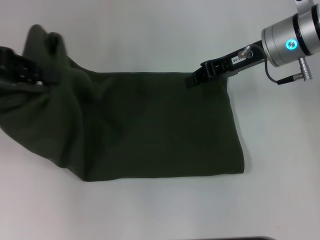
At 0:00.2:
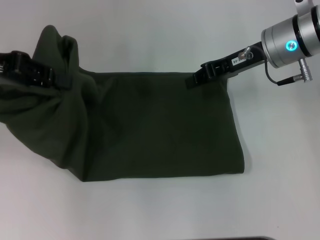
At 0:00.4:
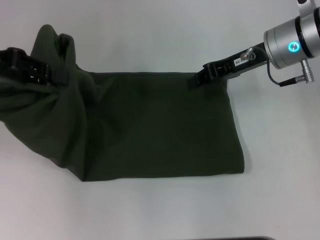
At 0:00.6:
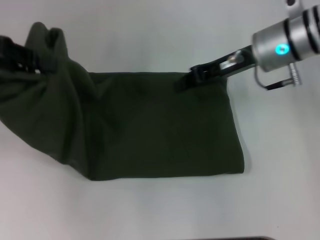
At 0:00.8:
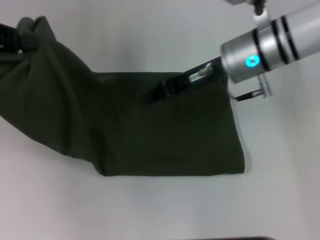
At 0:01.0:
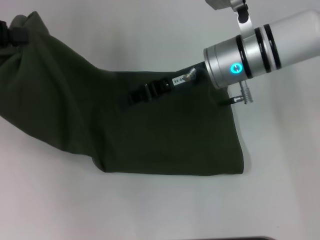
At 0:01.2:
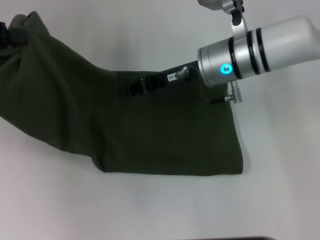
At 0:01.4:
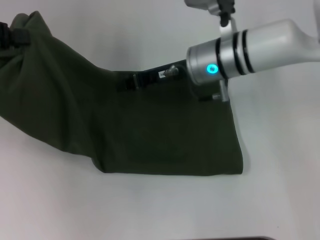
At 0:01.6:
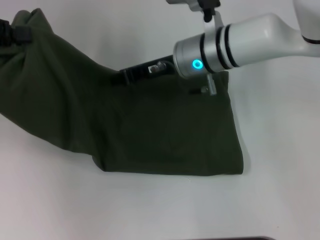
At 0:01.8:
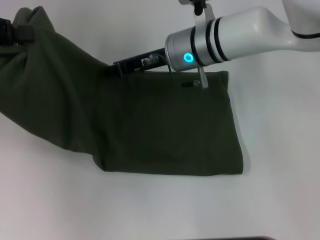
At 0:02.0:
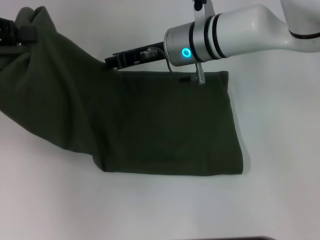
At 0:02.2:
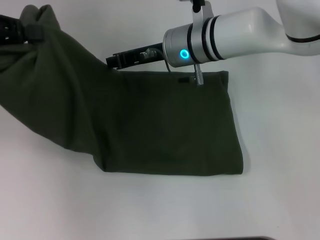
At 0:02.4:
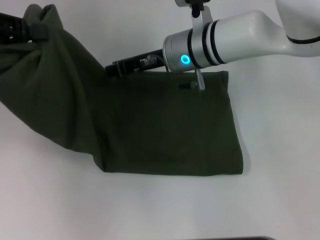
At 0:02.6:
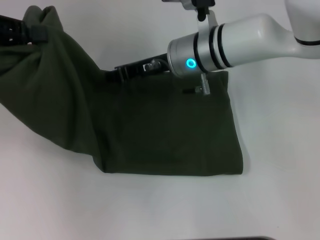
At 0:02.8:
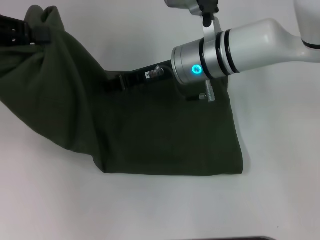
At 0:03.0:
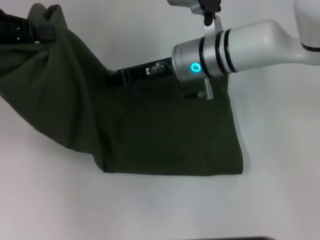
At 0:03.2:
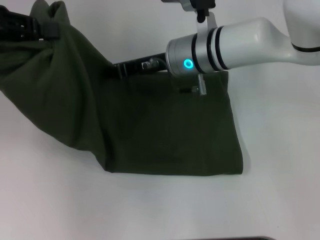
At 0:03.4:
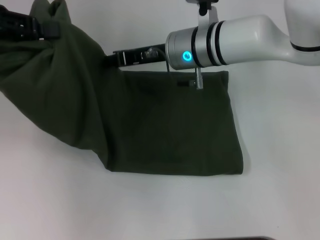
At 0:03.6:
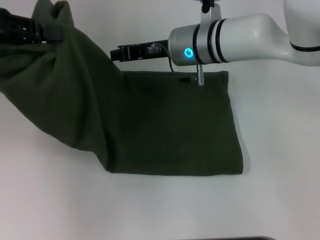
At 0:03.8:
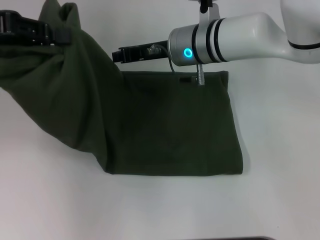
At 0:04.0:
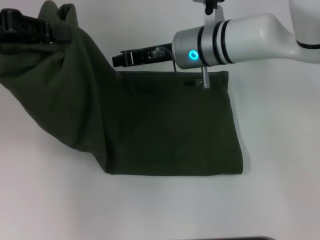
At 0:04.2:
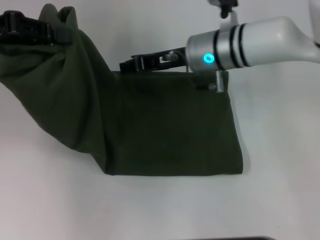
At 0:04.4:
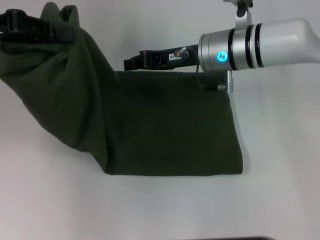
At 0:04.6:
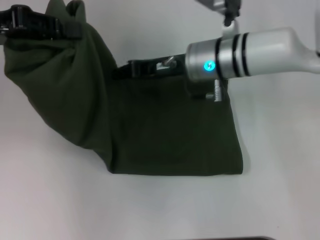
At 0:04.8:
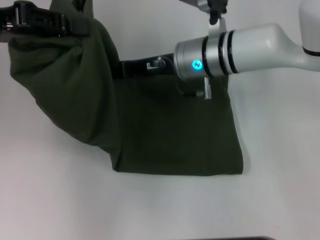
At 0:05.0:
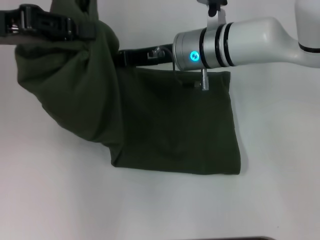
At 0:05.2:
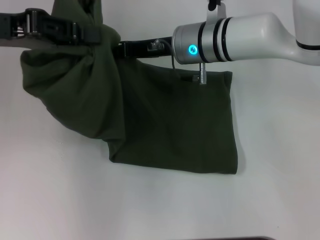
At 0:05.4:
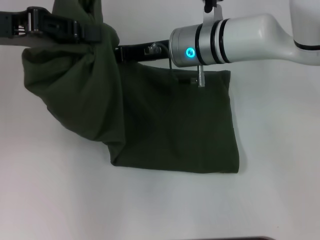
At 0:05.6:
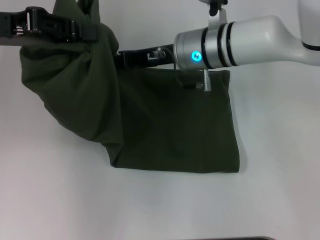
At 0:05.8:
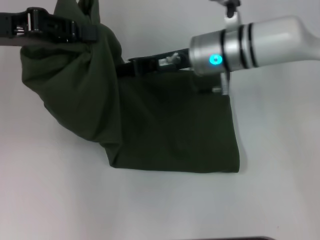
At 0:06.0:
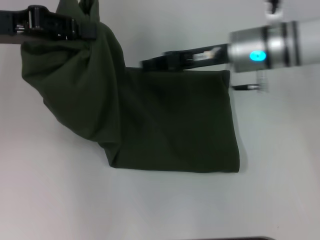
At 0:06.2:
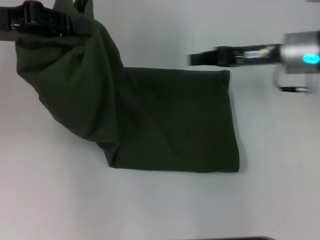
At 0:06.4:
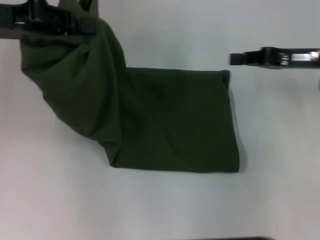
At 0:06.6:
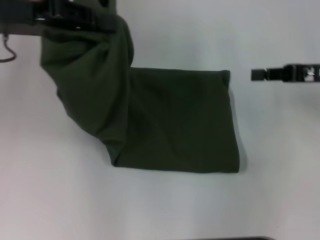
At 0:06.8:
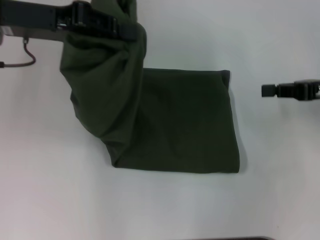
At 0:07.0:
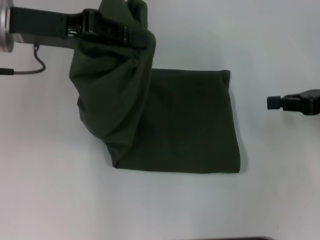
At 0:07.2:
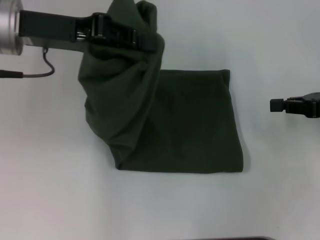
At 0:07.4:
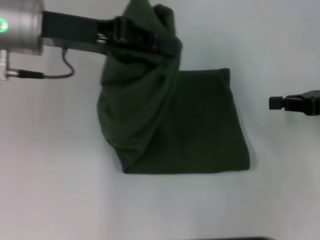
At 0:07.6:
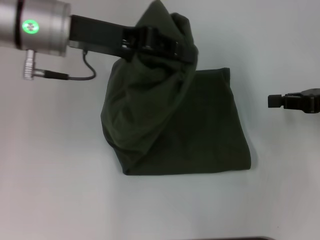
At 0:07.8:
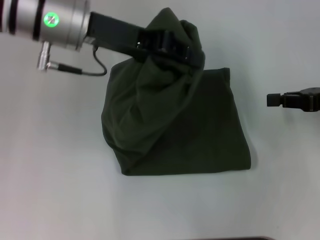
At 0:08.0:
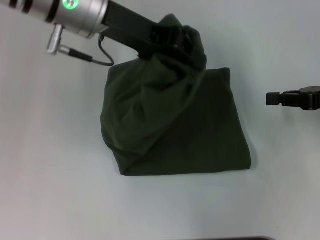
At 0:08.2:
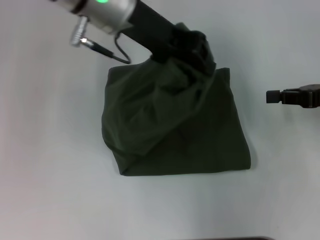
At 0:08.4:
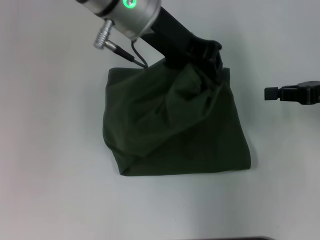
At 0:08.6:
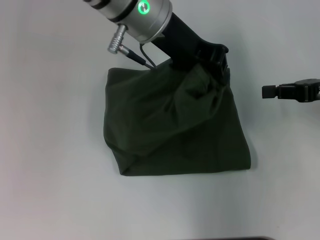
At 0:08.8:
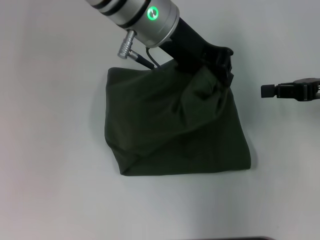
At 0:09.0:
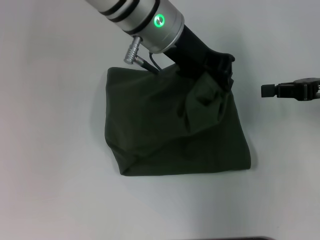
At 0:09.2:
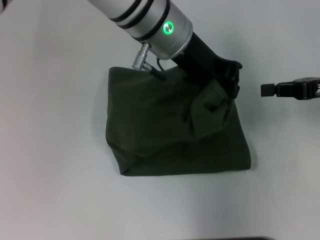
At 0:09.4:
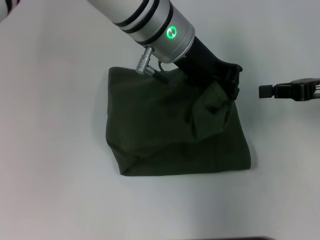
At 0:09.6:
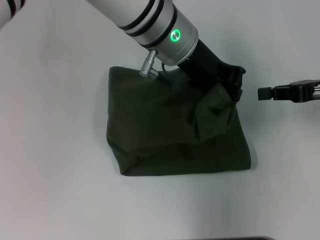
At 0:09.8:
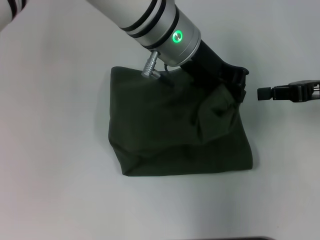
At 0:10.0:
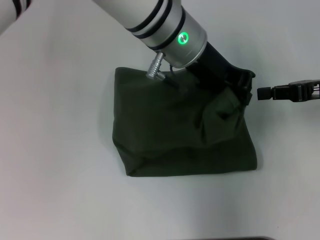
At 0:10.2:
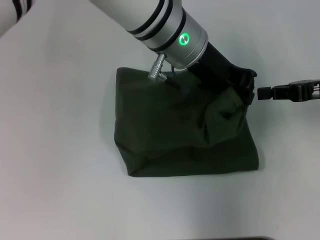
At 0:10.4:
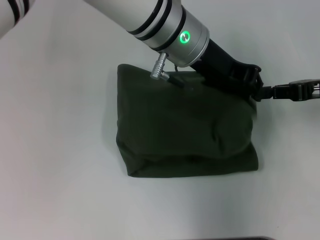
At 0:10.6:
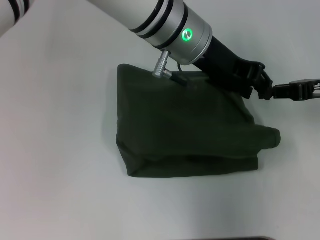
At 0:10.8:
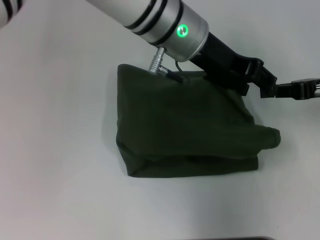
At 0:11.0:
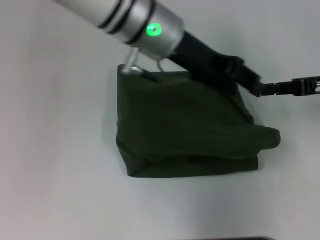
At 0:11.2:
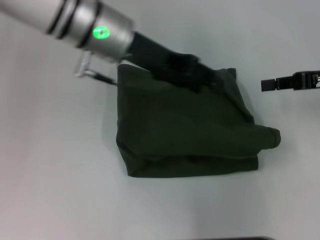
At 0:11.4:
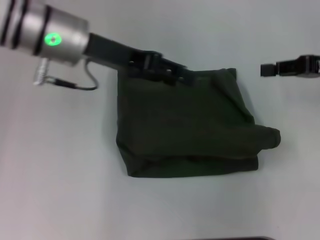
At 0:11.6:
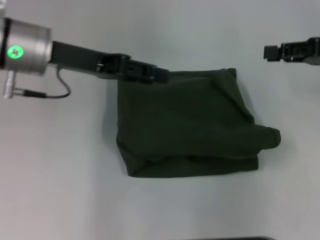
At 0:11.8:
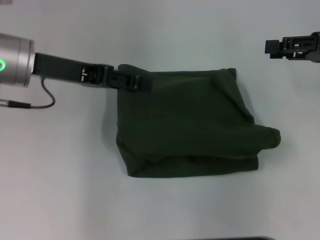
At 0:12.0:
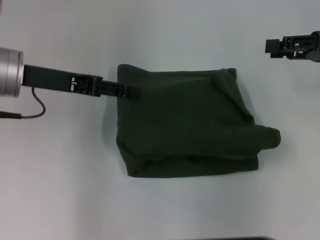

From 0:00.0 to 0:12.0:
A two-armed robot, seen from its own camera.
Step, from 0:00.0 to 0:11.2: Fold the clothes with your left hand.
From 0:00.0 to 0:01.6: The right gripper travels to the left by roughly 10 cm.
From 0:01.6 to 0:04.4: The grippers move only a little.
From 0:04.4 to 0:06.0: The grippers make only small movements.
From 0:06.0 to 0:07.6: The right gripper goes about 20 cm to the right and backward. The left gripper travels to the right by about 10 cm.
From 0:07.6 to 0:09.0: The left gripper goes approximately 15 cm to the right.
From 0:09.0 to 0:10.4: The grippers make only small movements.
From 0:10.4 to 0:12.0: The right gripper opens its fingers; the left gripper goes roughly 20 cm to the left, and opens its fingers.

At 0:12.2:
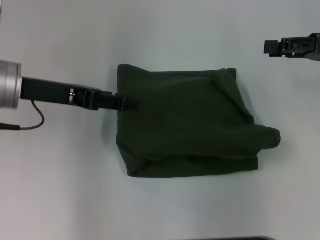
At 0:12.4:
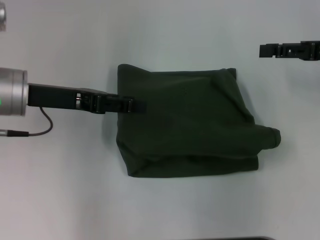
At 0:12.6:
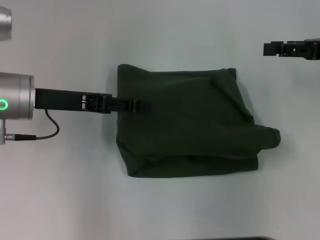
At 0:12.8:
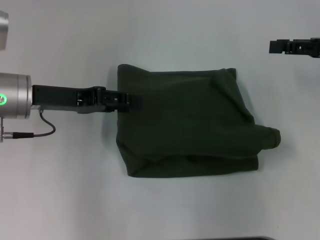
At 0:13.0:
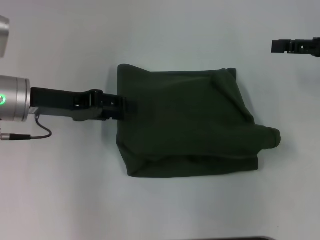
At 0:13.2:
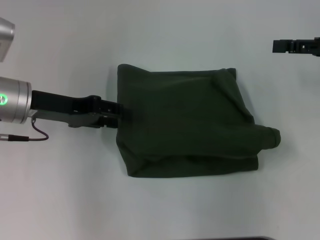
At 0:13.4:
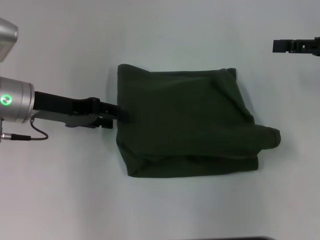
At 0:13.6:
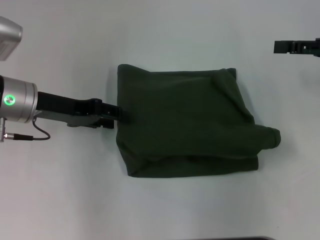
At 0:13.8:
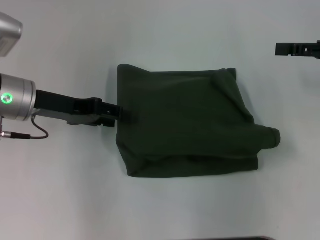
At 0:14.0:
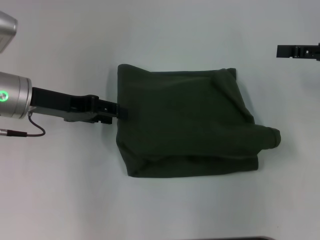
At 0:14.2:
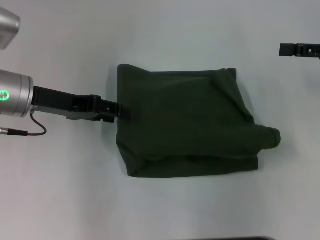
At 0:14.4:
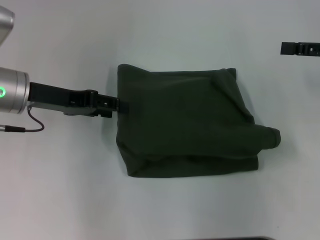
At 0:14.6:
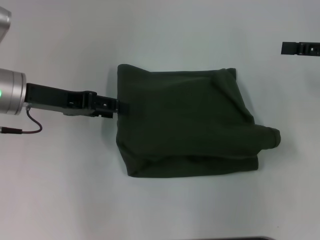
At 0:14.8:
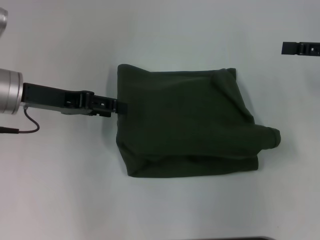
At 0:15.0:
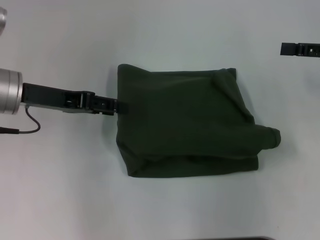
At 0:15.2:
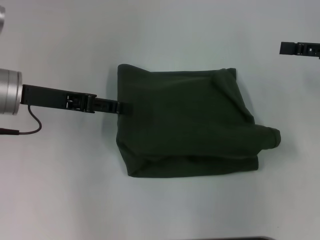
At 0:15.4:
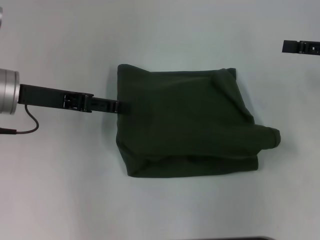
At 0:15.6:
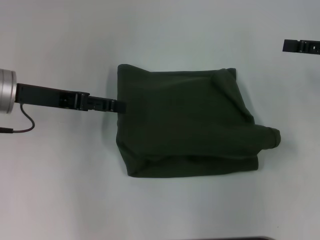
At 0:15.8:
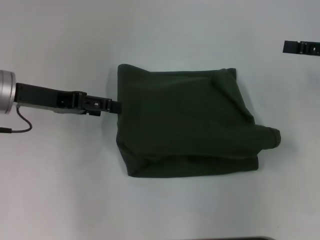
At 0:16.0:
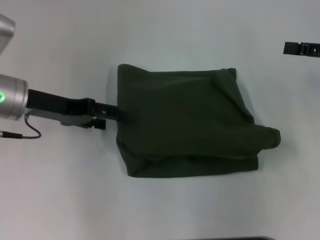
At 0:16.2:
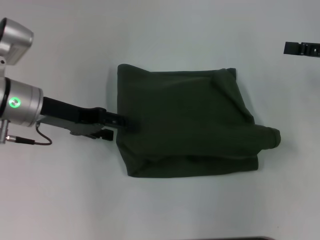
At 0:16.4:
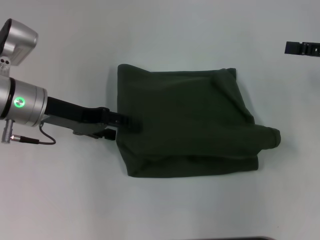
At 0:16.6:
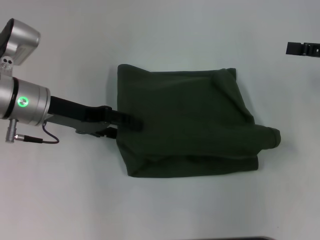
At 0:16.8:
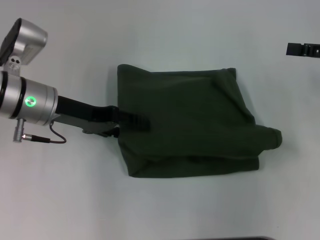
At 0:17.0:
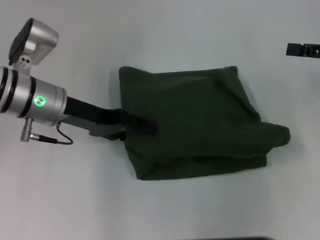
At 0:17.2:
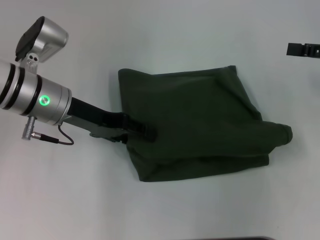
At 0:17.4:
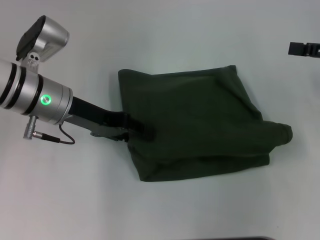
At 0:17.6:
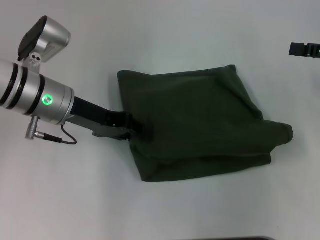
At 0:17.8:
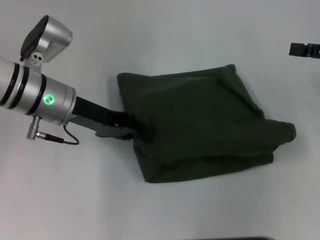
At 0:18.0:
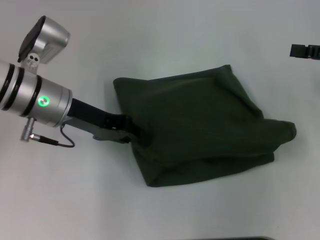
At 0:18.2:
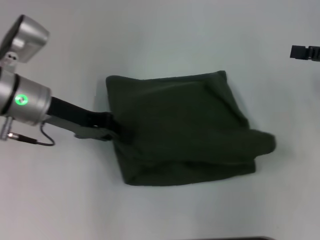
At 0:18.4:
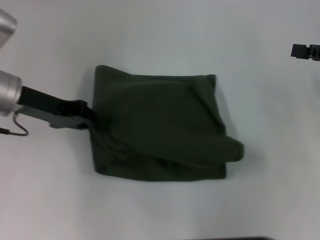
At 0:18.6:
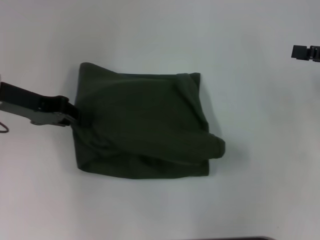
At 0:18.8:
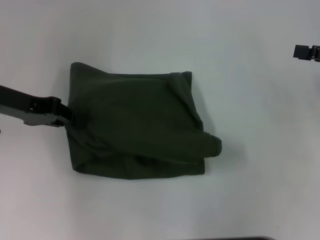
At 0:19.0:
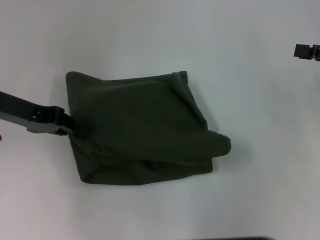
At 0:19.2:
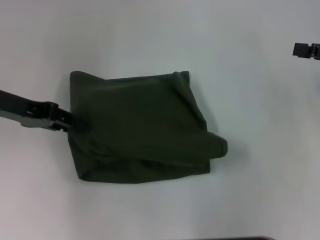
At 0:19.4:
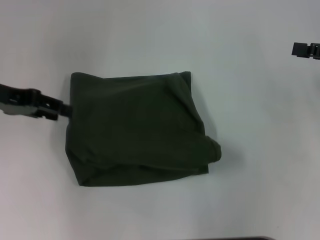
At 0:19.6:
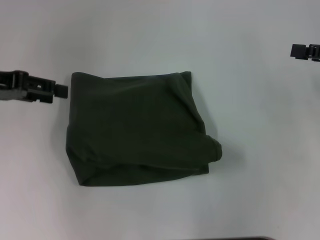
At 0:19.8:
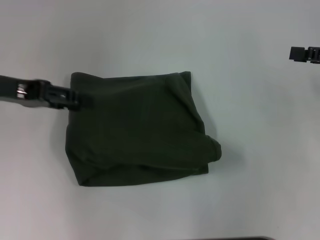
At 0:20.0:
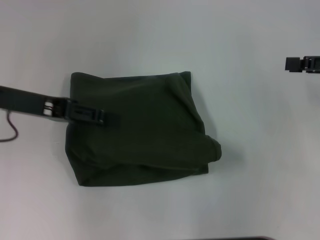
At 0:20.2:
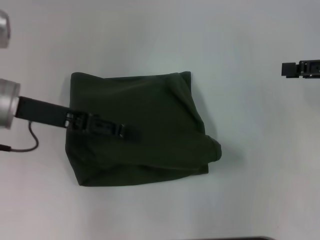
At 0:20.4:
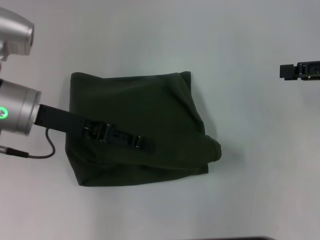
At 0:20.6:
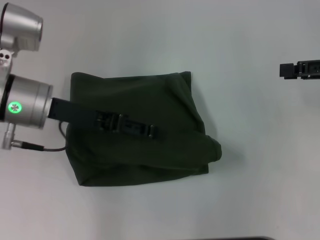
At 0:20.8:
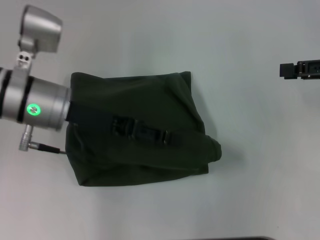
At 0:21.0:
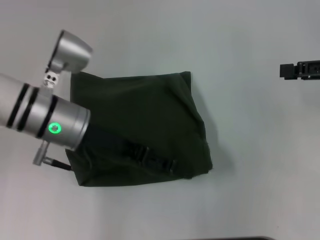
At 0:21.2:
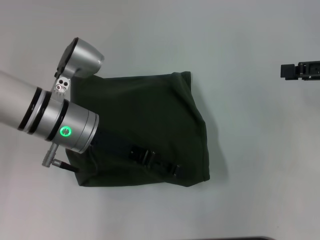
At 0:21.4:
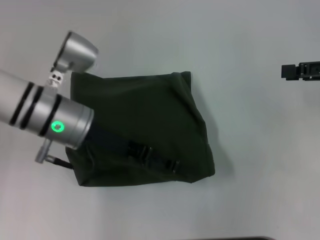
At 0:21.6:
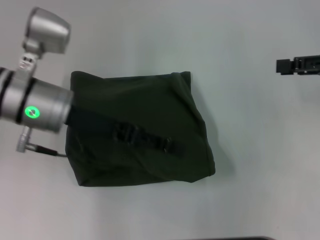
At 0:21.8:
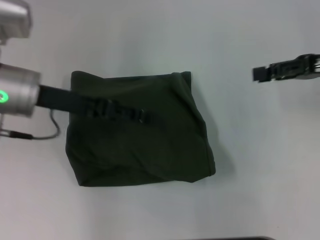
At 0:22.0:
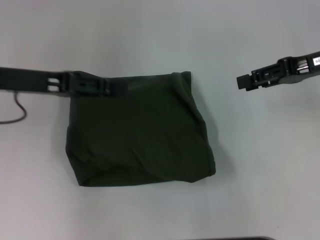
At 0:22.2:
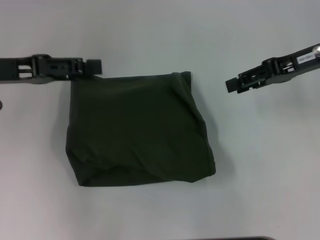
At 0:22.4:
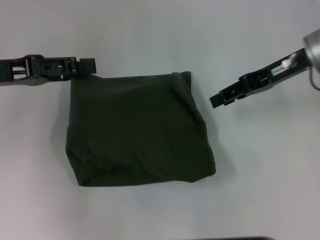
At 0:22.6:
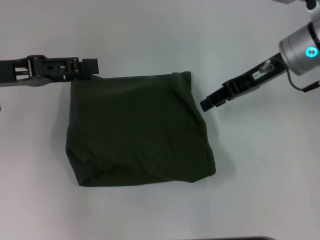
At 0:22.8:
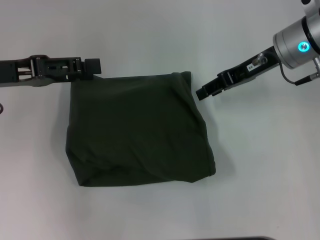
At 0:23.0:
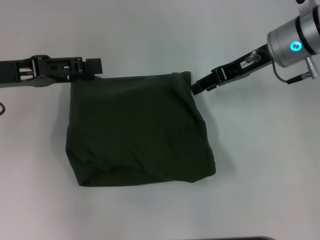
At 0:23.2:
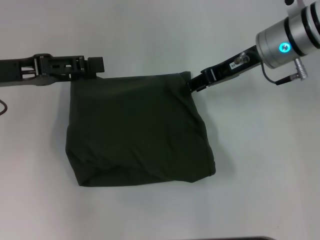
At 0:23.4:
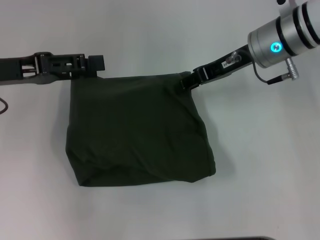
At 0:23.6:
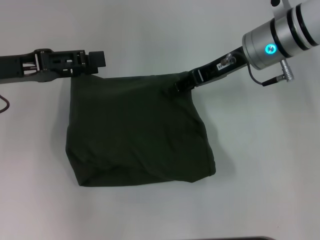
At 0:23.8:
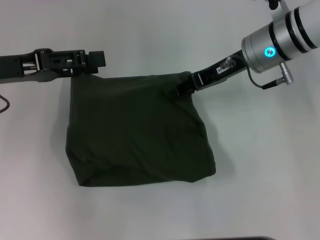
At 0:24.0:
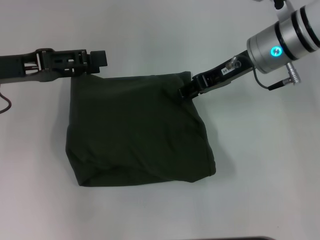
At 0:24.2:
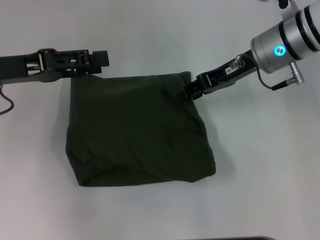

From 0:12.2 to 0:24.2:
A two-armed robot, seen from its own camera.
From 0:13.8 to 0:15.2: There are only small adjustments of the grippers.
From 0:16.6 to 0:18.2: The left gripper closes up.
From 0:18.2 to 0:19.8: The left gripper is displaced to the left and upward by approximately 10 cm, and opens its fingers.
From 0:19.8 to 0:21.2: The left gripper heads to the right and downward, covering some 15 cm.
From 0:21.2 to 0:22.6: The left gripper travels to the left and upward by roughly 15 cm. Meanwhile the right gripper shifts roughly 15 cm to the left and forward.
From 0:22.6 to 0:24.2: The grippers move only a little.
